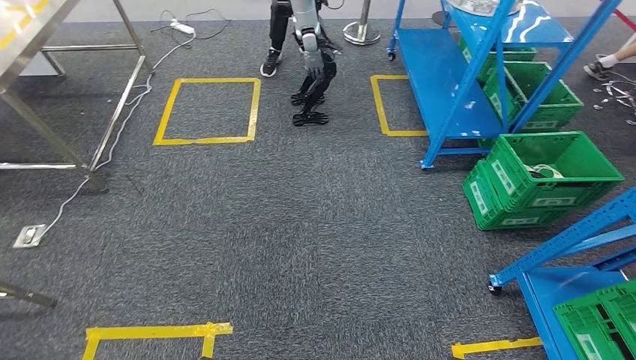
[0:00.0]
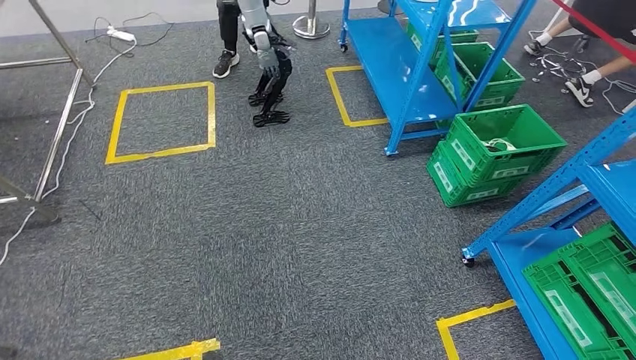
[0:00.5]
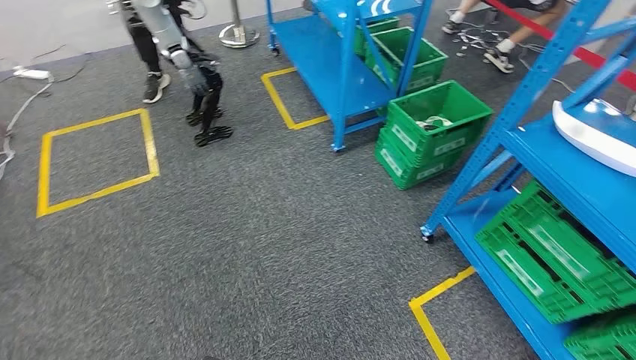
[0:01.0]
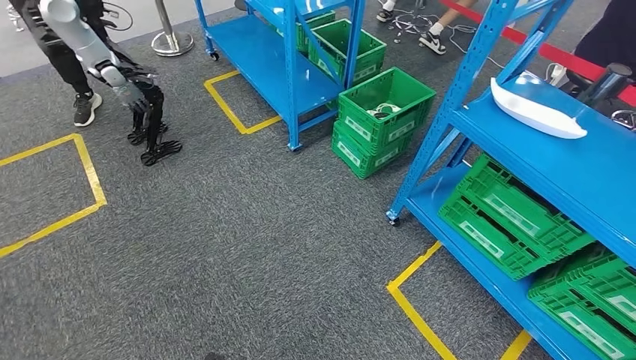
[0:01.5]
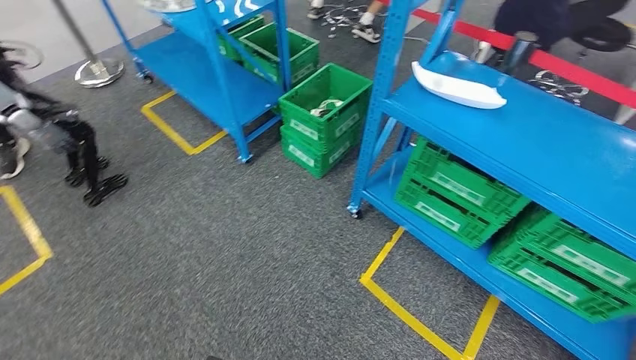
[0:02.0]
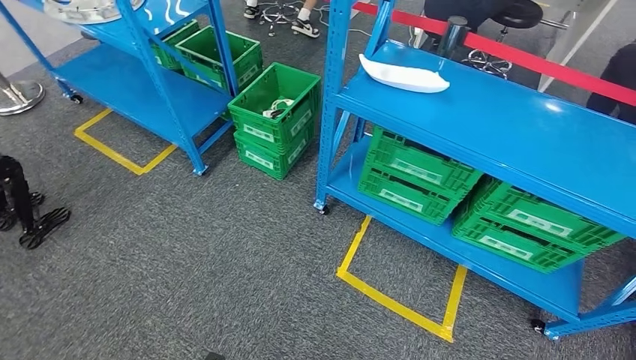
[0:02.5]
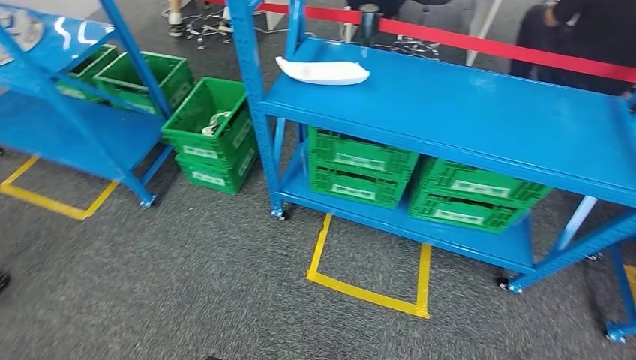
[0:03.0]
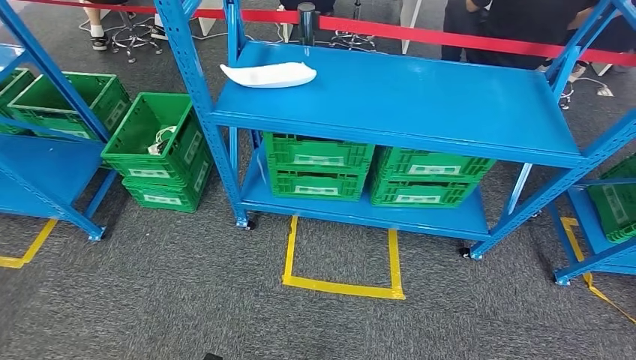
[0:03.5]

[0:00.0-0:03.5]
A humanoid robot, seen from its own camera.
Step, 0:00.0 to 0:03.5: Move to the initial position of the workbench.
